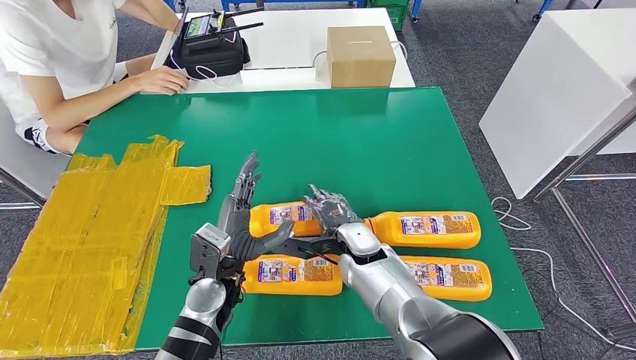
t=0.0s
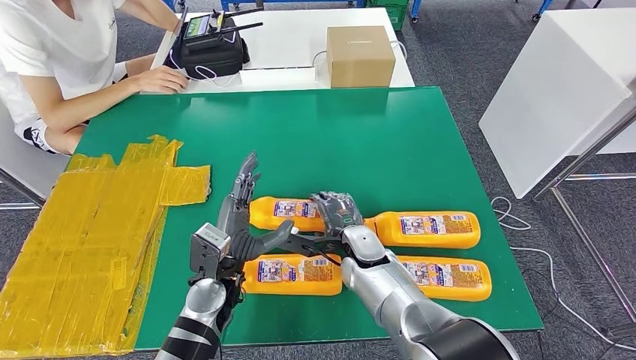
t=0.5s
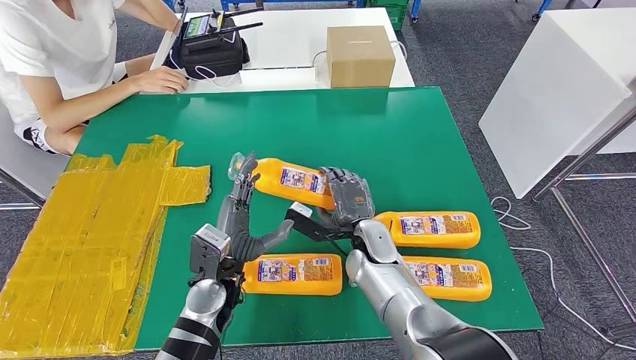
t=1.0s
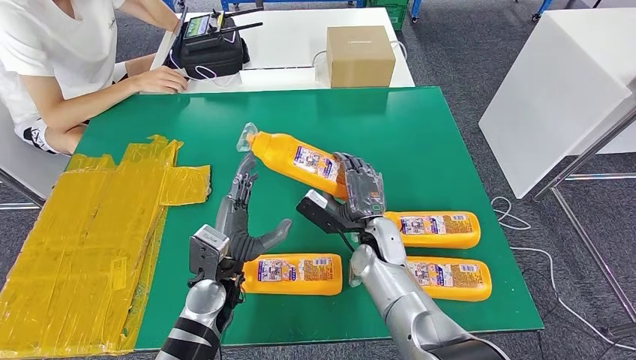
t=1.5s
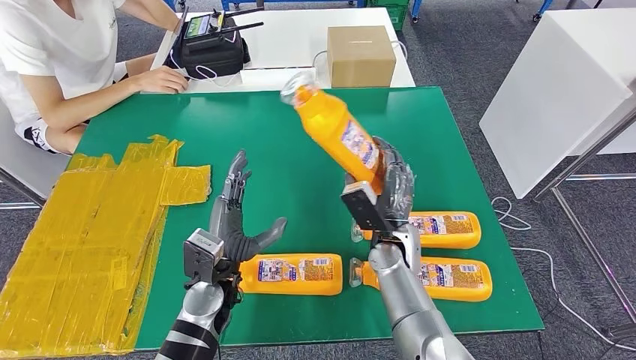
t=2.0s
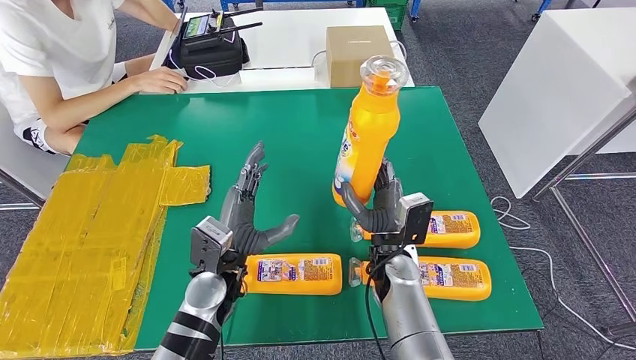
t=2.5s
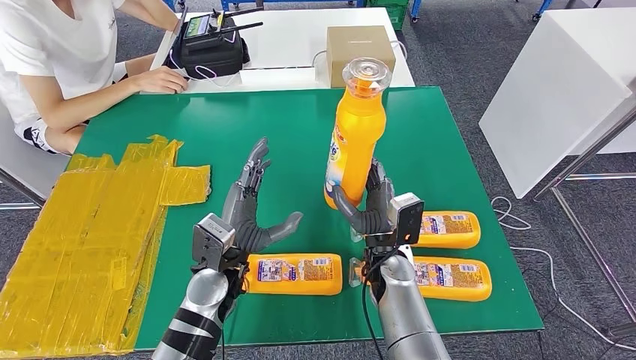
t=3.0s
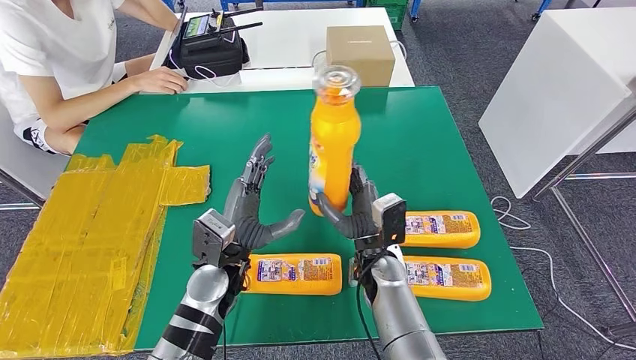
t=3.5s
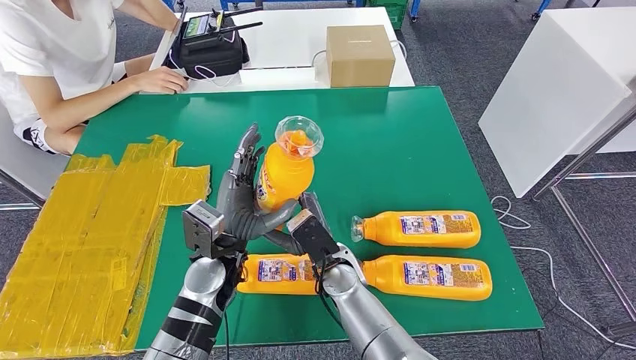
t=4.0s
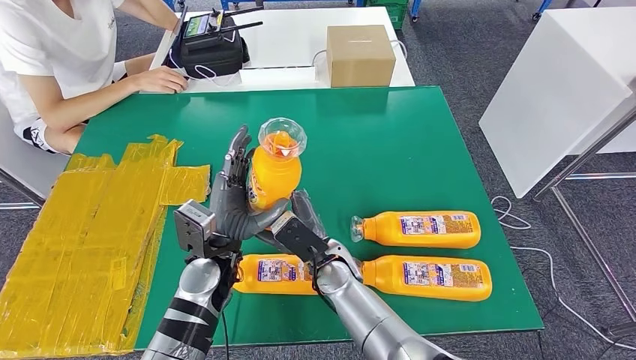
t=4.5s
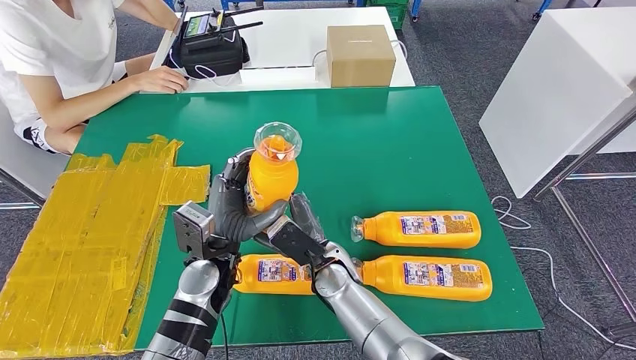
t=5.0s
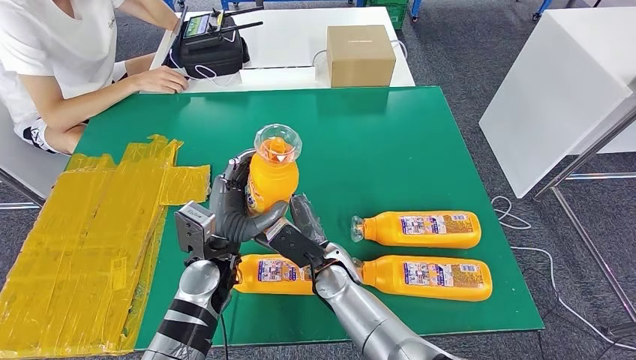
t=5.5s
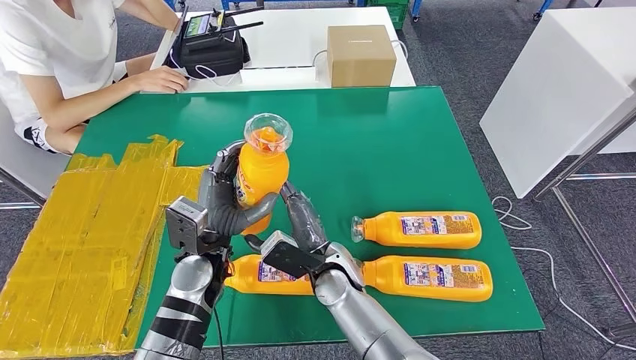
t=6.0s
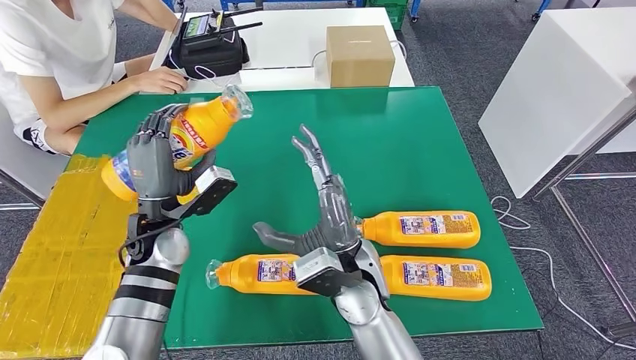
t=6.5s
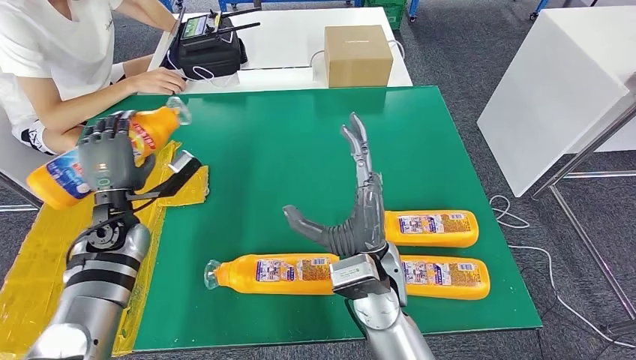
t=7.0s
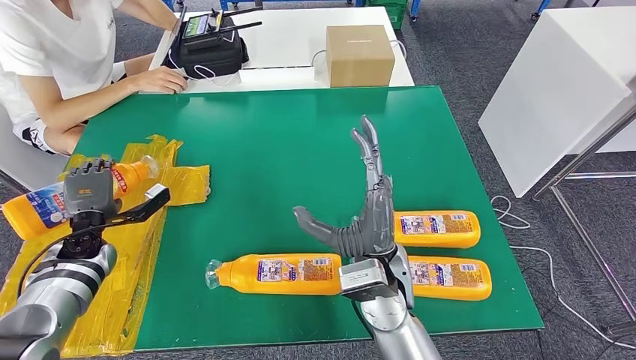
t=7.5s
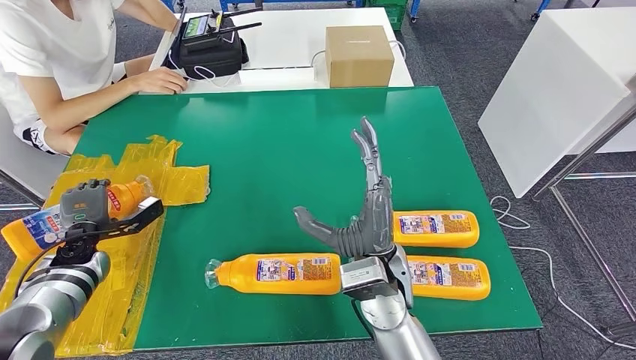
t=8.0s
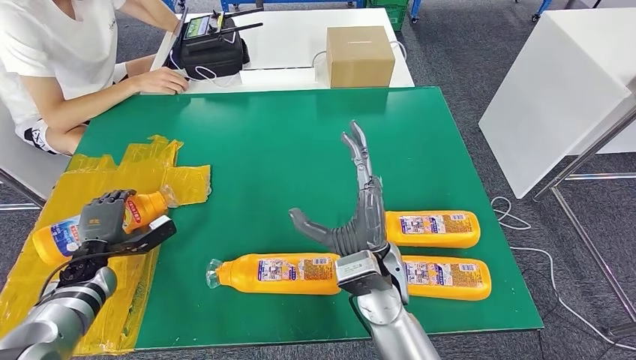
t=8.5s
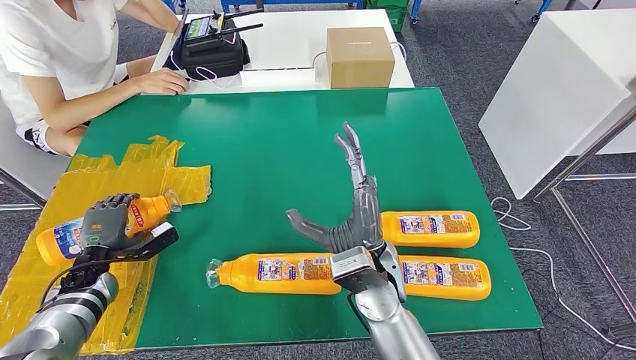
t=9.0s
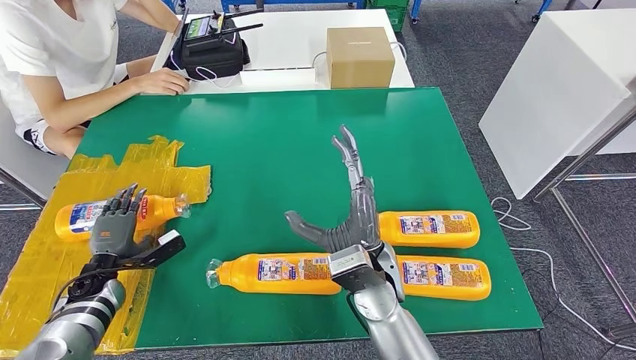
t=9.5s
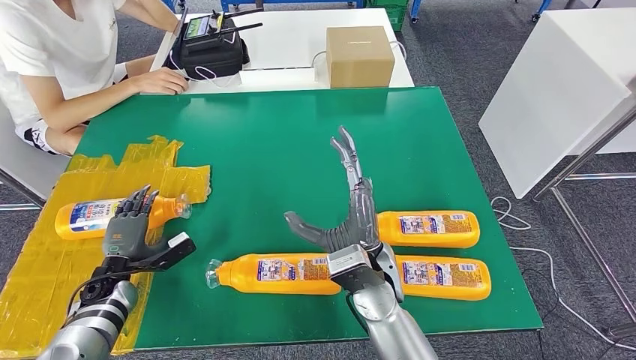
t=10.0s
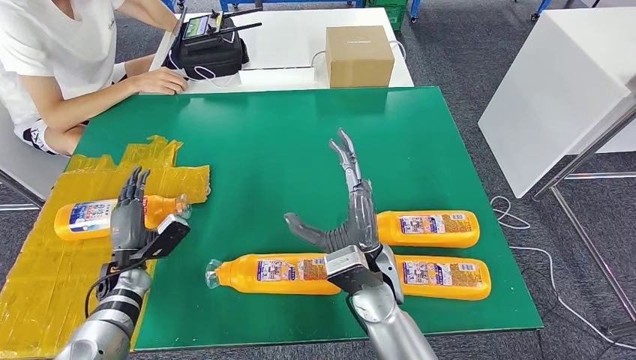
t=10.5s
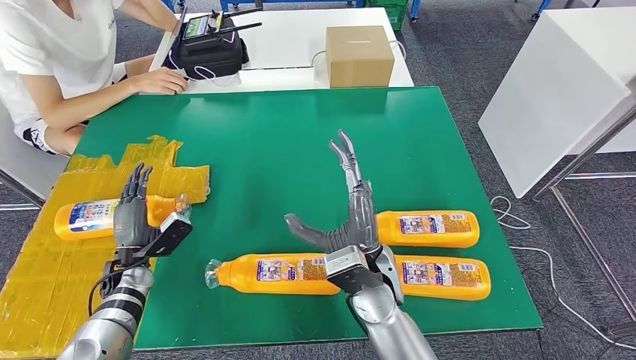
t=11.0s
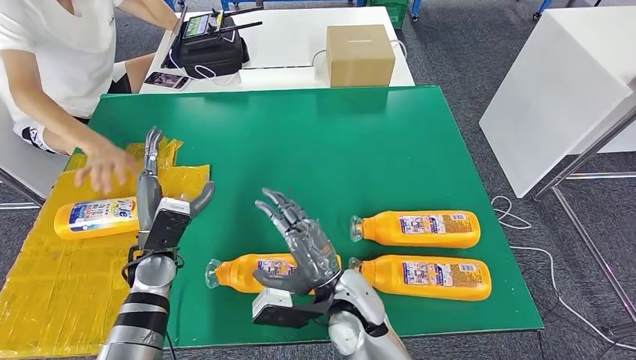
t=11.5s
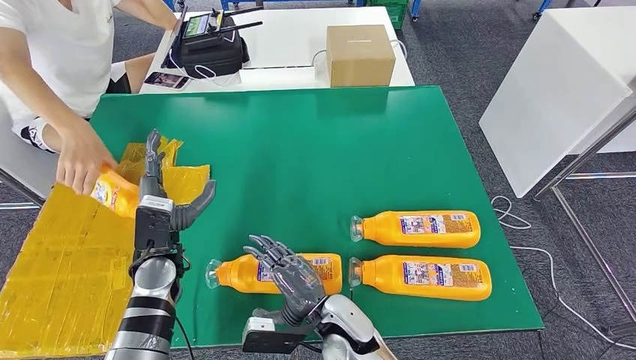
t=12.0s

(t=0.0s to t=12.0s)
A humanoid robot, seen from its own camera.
Step, t=0.0s - t=3.0s: Take the bottle from the table.
Step, t=3.5s - t=10.0s: Flip the bottle to face forward.
t=0.0s - t=2.0s: The right hand moves to the right, some 5 cm.
t=2.0s - t=4.0s: The right hand travels to the left by some 10 cm.
t=4.0s - t=6.0s: The hands stay close to where they were, moving slightly.
t=8.0s - t=10.0s: The left hand goes about 5 cm backward.

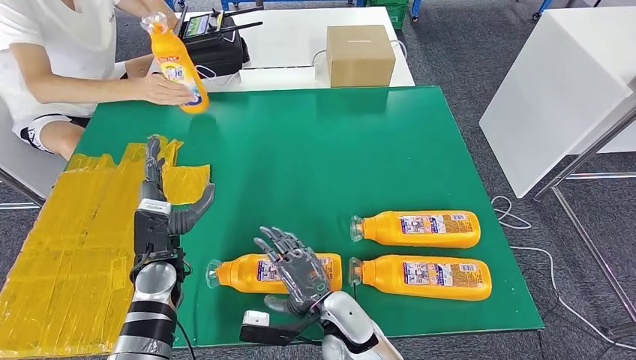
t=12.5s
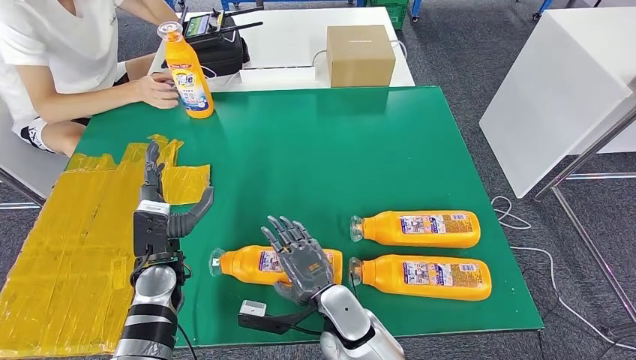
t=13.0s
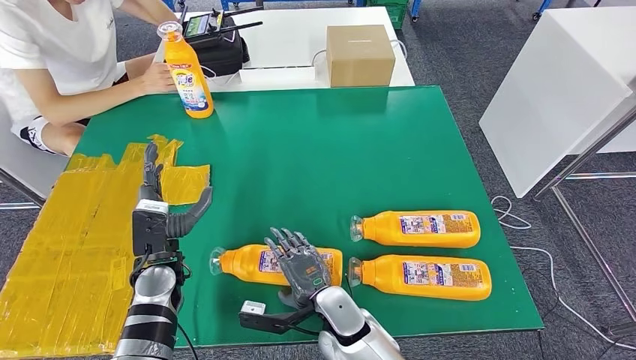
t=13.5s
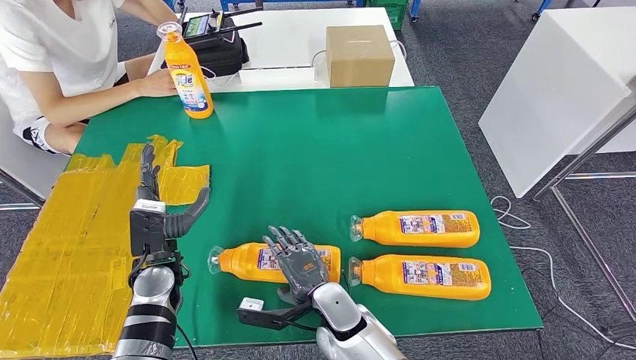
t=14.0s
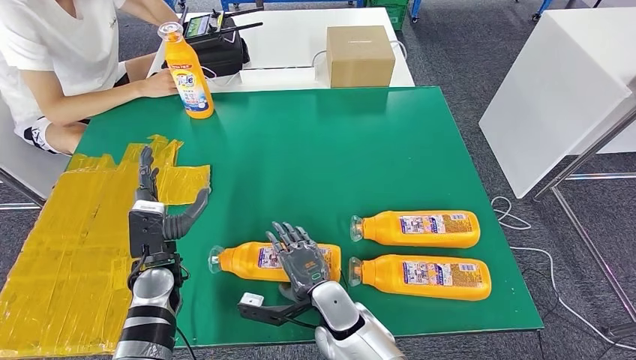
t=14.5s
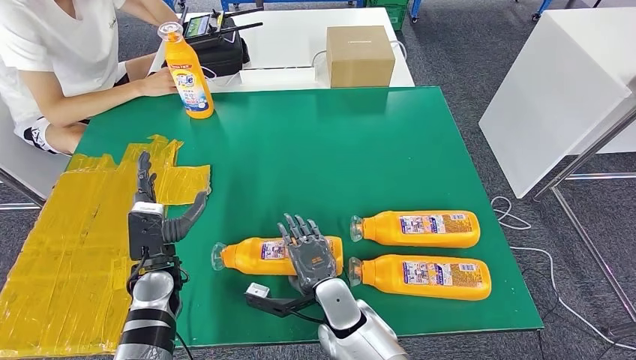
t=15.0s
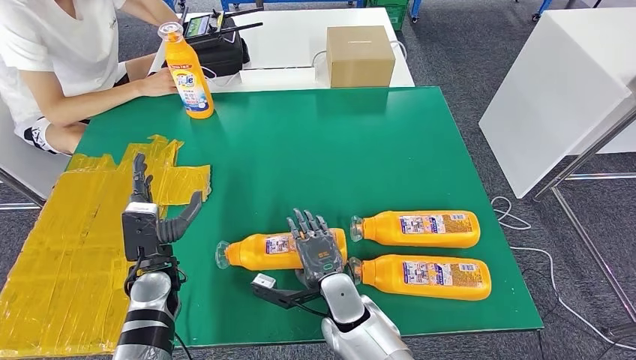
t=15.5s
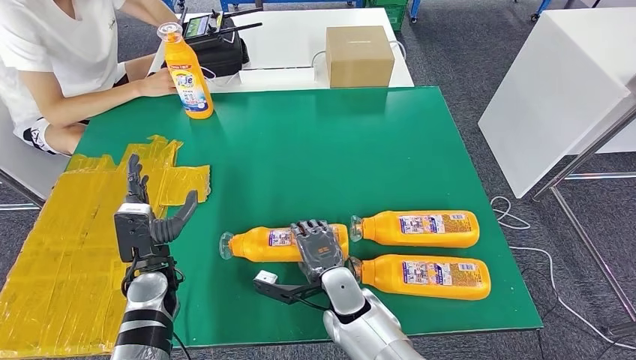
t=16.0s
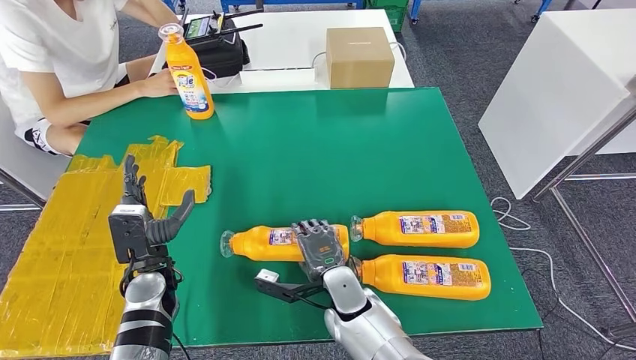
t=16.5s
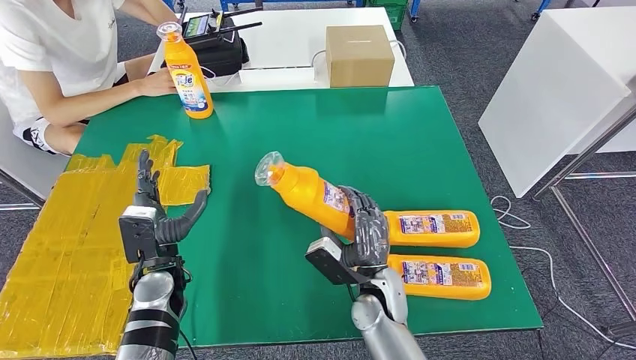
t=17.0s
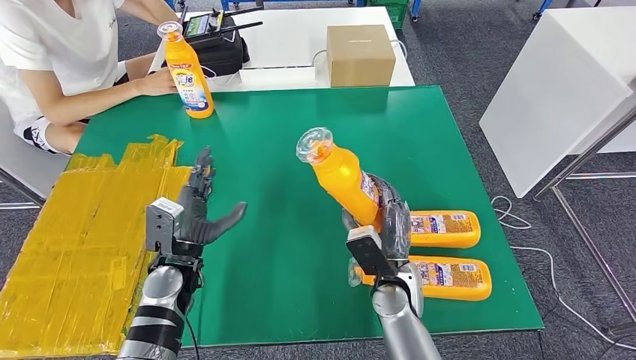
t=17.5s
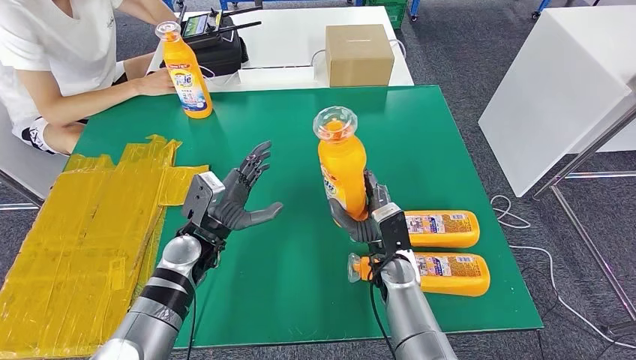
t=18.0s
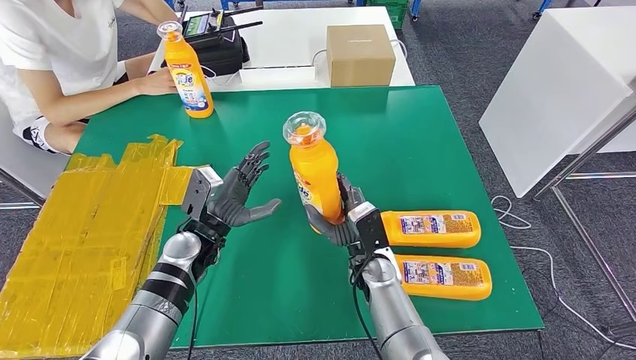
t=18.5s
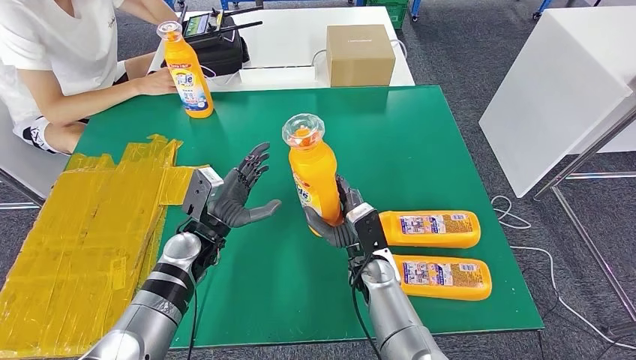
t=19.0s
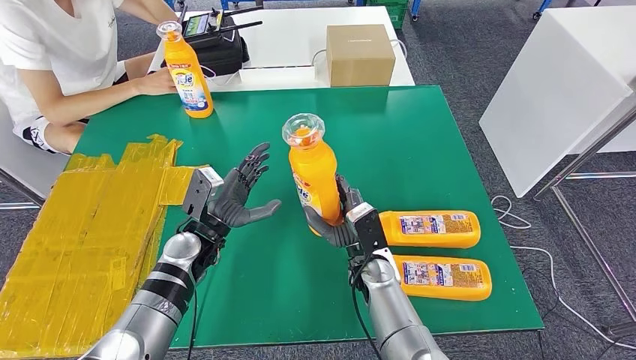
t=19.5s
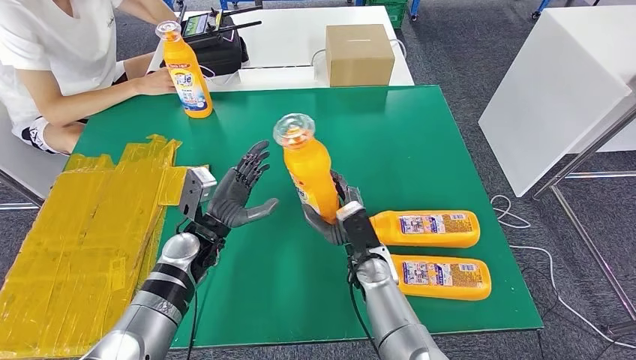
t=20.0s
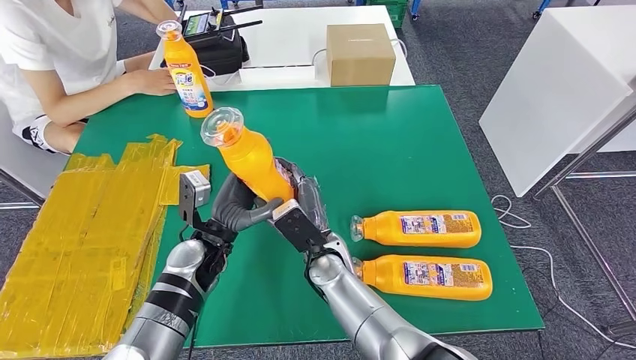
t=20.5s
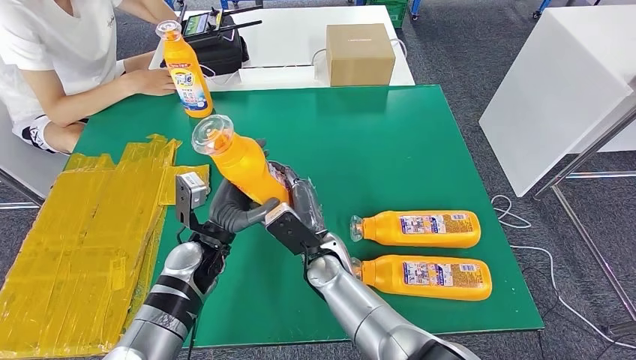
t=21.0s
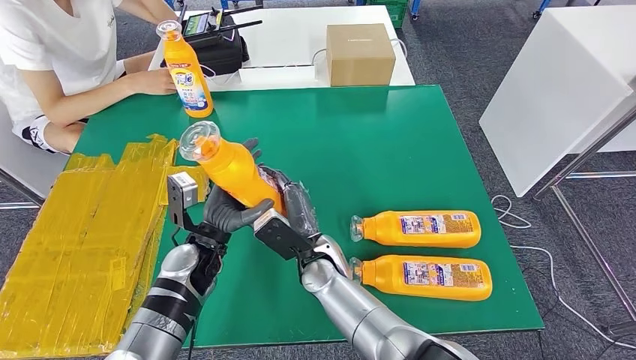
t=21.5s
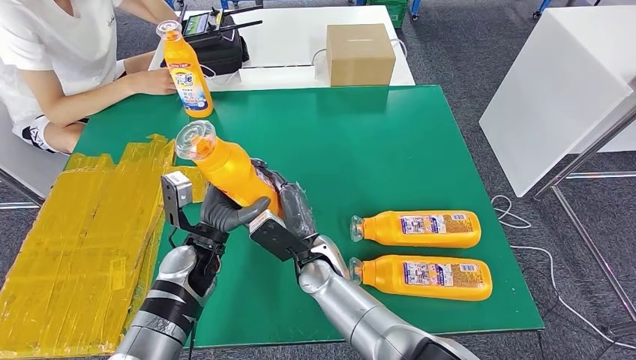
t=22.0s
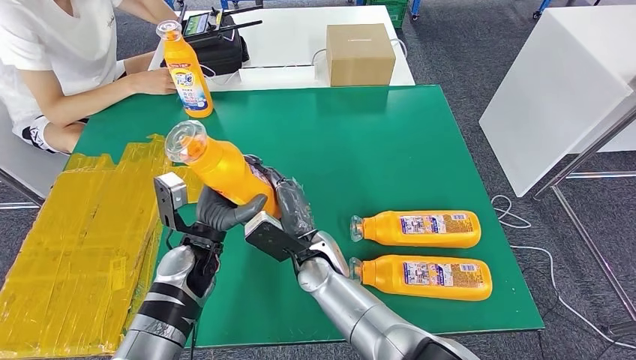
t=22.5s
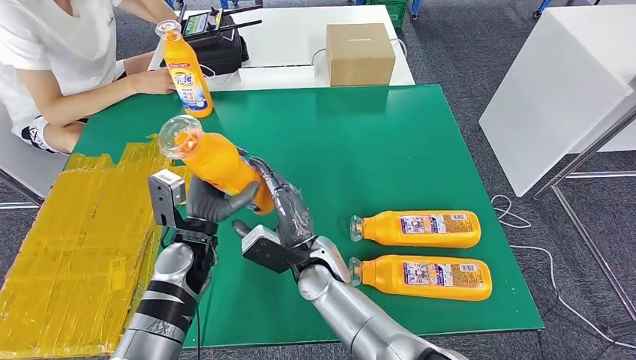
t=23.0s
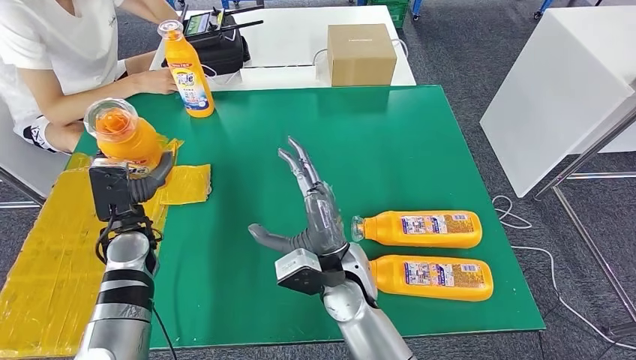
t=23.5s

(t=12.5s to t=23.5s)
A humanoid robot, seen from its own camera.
Step, t=12.5s - t=21.0s: Pick up the bottle from the table.
t=14.5s - t=16.0s: The hands make only small movements.
t=18.0s - t=20.0s: The hands move only a little.
t=20.0s - t=21.5s: The right hand heads to the left, covering approximately 10 cm.
t=21.5s - t=23.5s: The left hand moves to the left, approximately 10 cm; the right hand shifts roughly 5 cm upward.
